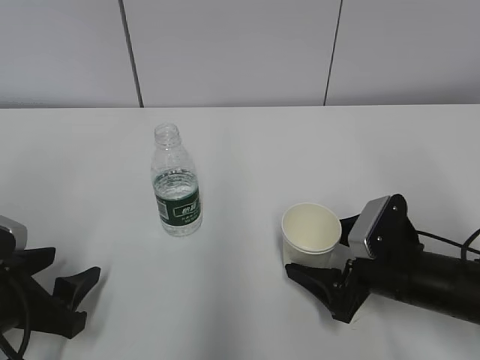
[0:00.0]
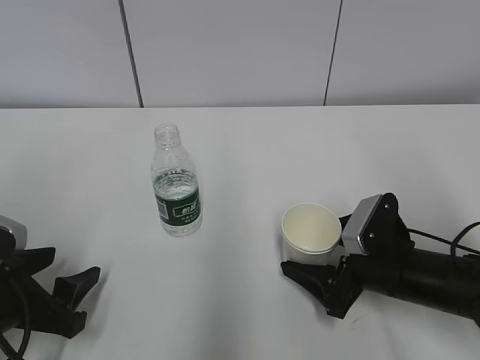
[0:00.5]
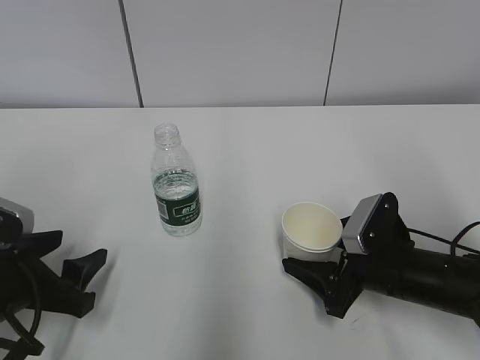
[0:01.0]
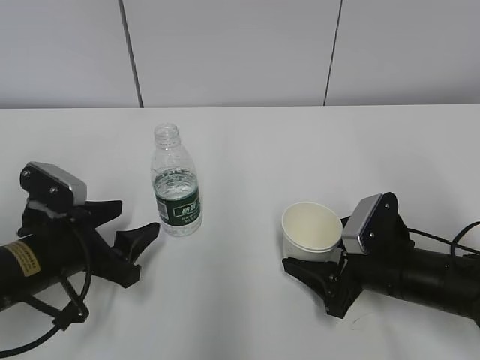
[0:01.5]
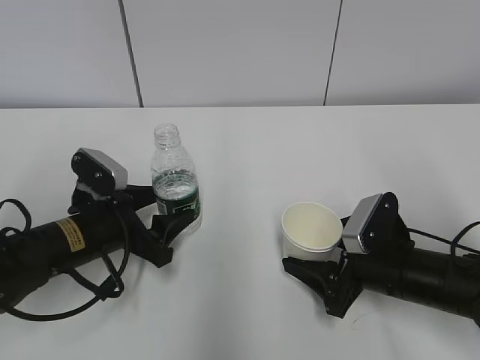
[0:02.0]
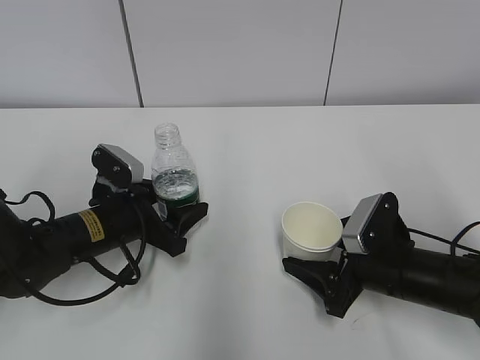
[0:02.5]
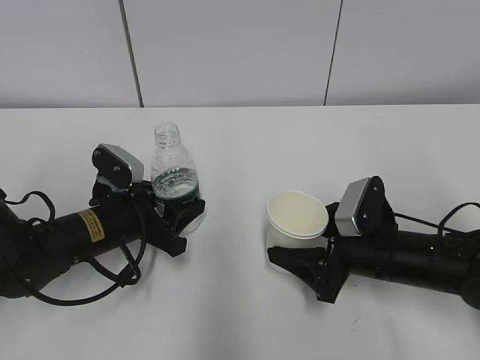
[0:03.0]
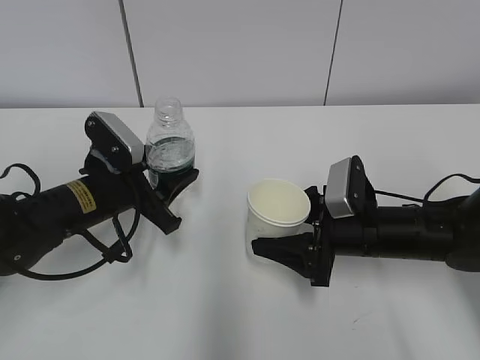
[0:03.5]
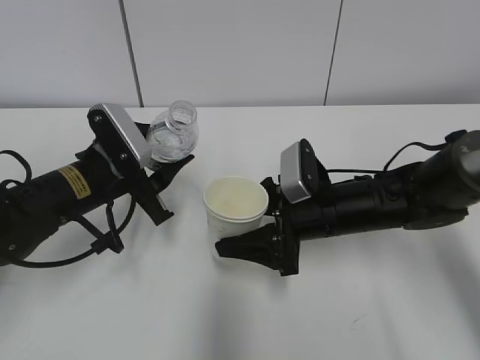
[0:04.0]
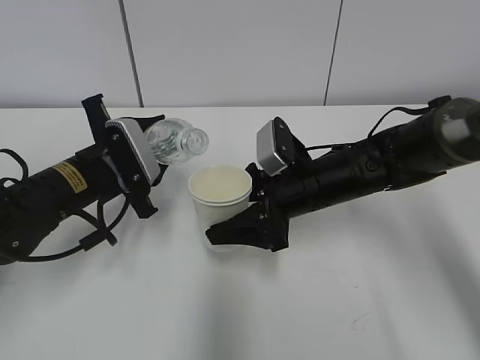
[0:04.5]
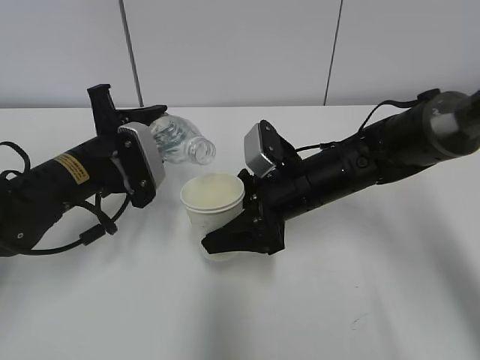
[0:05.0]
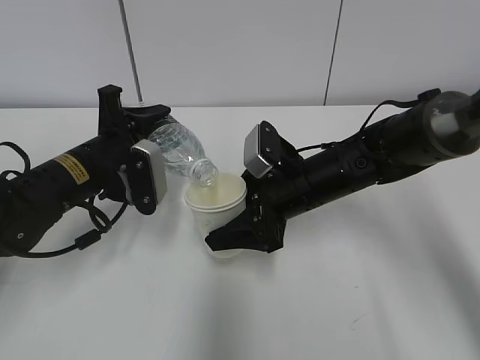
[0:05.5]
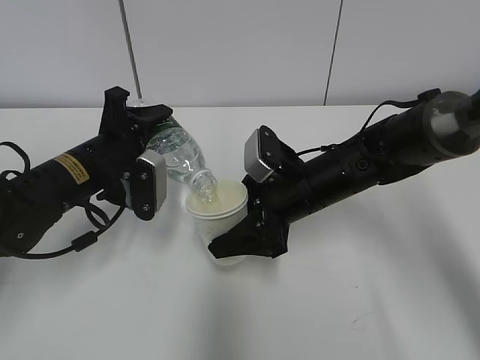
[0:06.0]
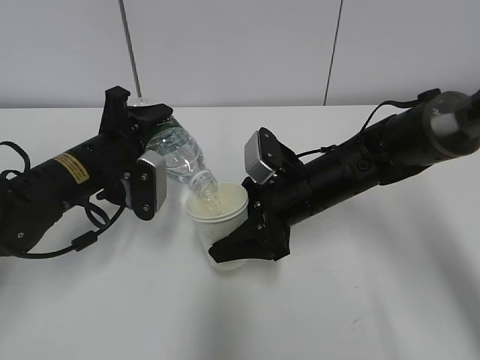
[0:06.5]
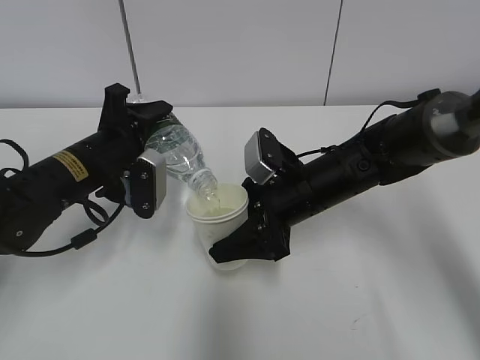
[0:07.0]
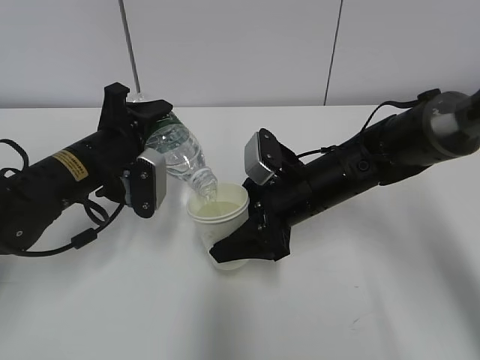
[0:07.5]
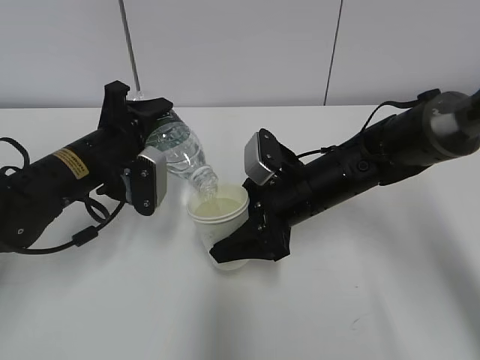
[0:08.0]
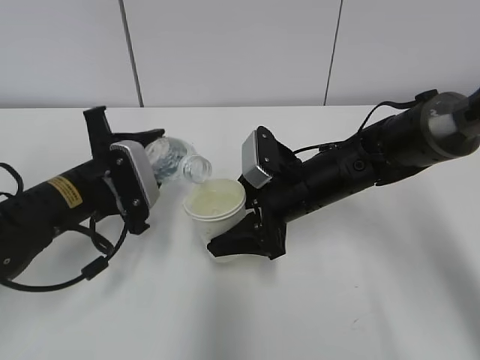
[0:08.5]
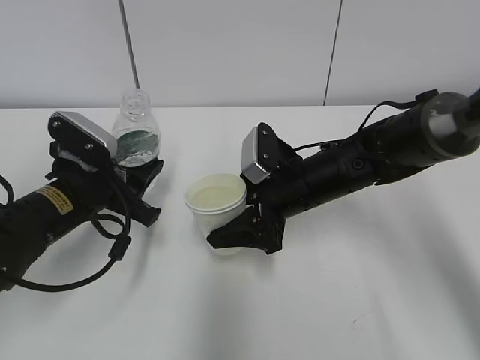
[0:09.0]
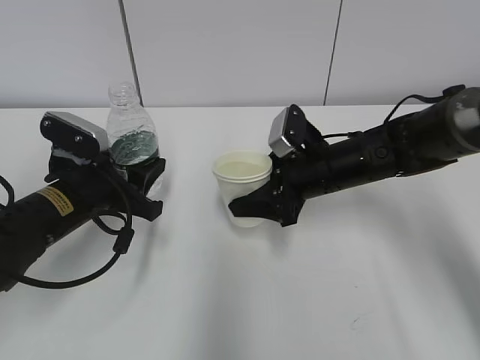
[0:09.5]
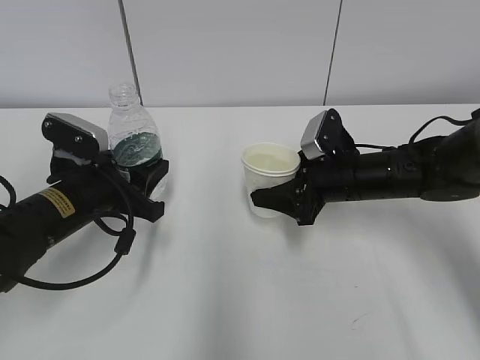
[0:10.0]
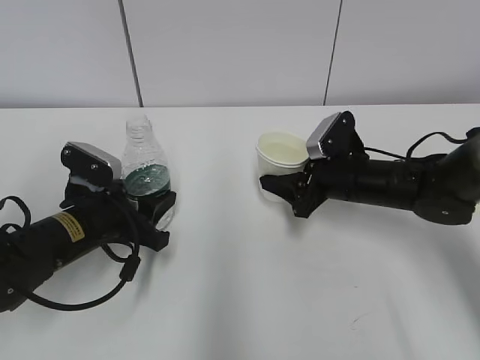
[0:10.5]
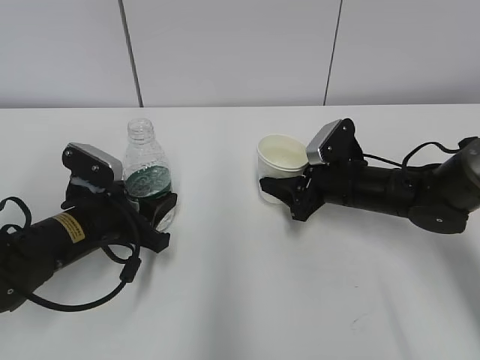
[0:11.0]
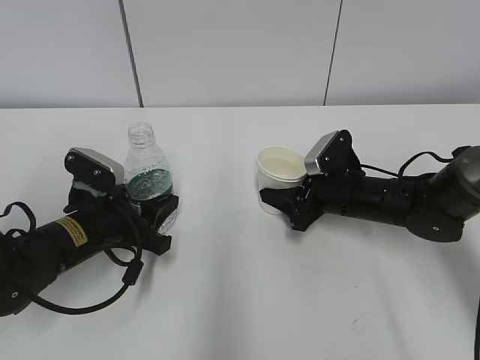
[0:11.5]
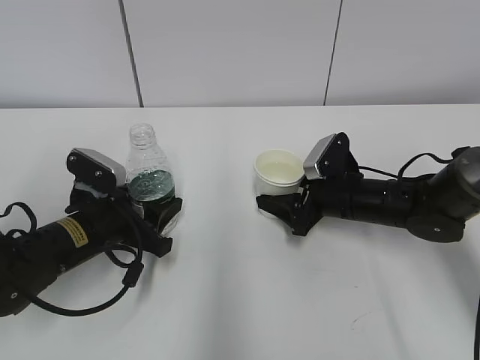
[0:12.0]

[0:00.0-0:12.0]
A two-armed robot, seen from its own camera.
Step, 0:02.0 to 0:03.5: Lift the paper cup with the right hand.
Step, 0:04.0 to 0:05.5: Fill water with the right hand.
Step, 0:04.0 to 0:05.5: Pour water with the left hand.
Step, 0:07.0 to 0:09.0: Place the paper cup with the right hand.
0:00.0 to 0:02.0: The left gripper shifts roughly 15 cm forward and to the right, while the right gripper closes.
0:02.0 to 0:04.0: The left gripper shifts about 5 cm upward, and closes. Meanwhile the right gripper moves to the left and forward, about 10 cm.
0:06.0 to 0:08.0: Both grippers stay about where they are.
0:08.0 to 0:10.0: The right gripper moves to the right, about 5 cm, and closes up.
0:10.0 to 0:12.0: The right gripper opens its fingers.

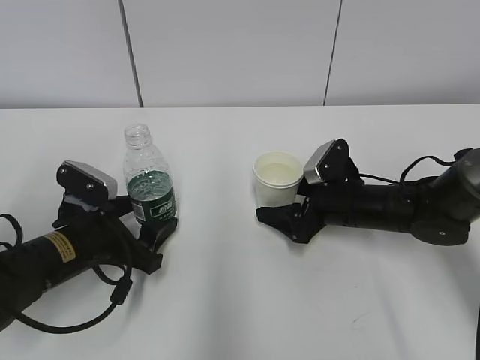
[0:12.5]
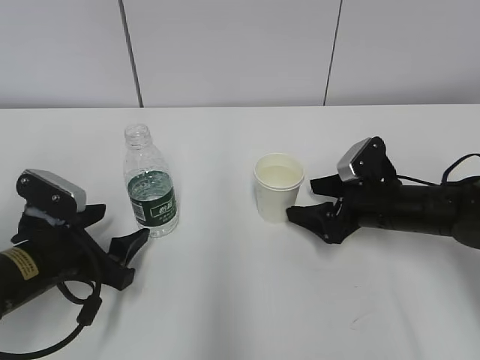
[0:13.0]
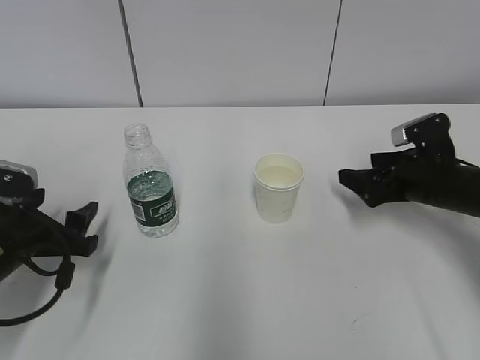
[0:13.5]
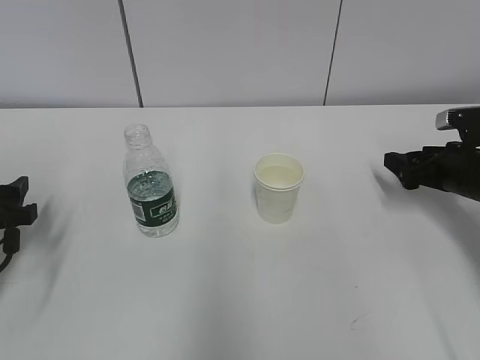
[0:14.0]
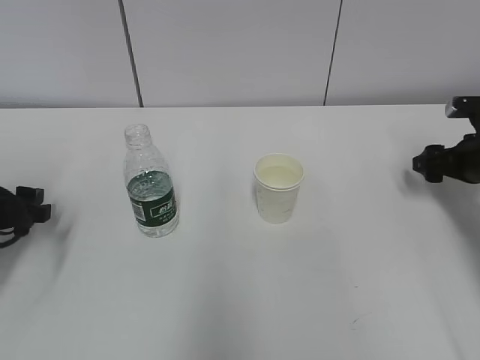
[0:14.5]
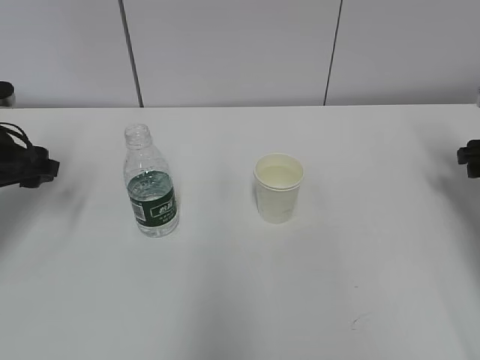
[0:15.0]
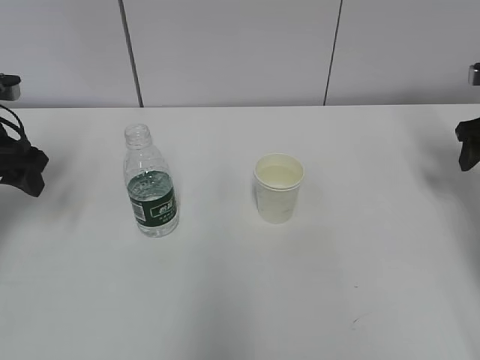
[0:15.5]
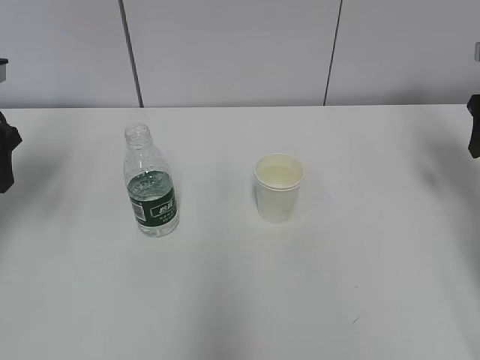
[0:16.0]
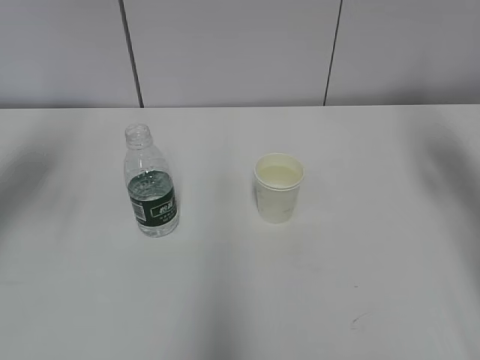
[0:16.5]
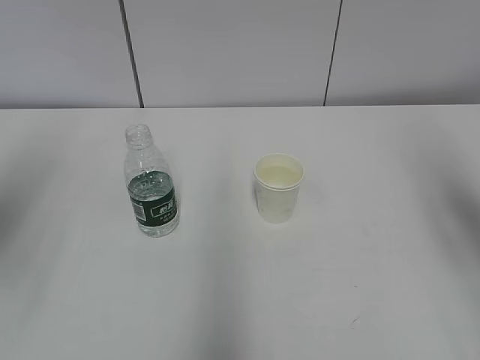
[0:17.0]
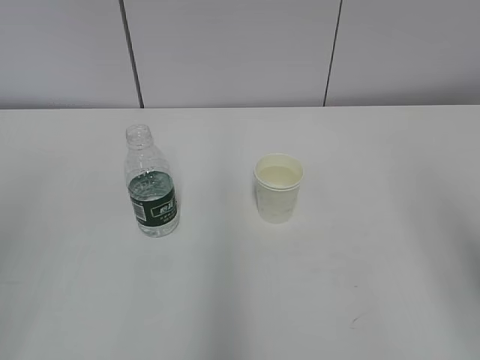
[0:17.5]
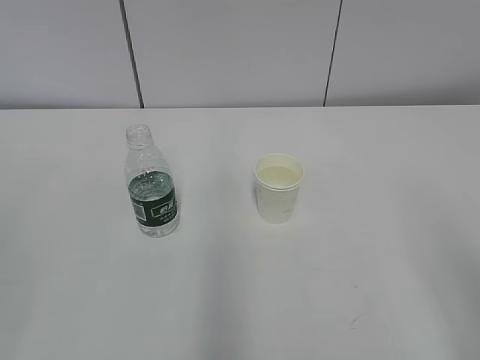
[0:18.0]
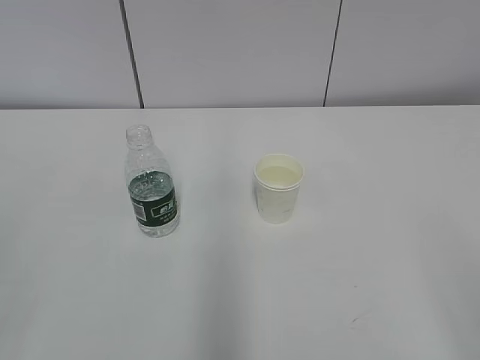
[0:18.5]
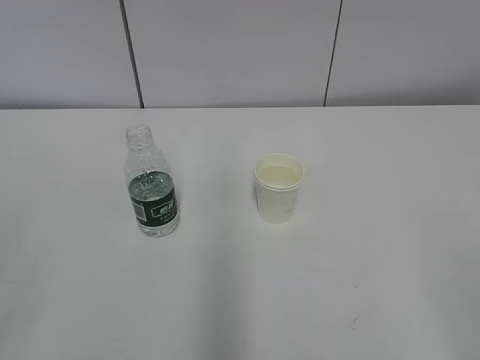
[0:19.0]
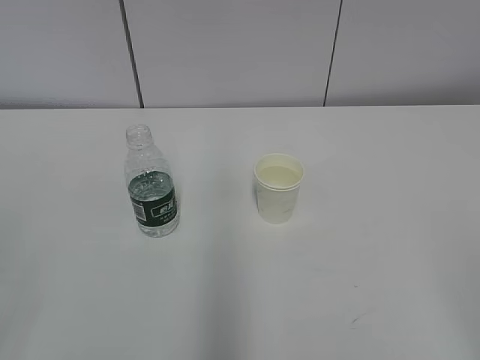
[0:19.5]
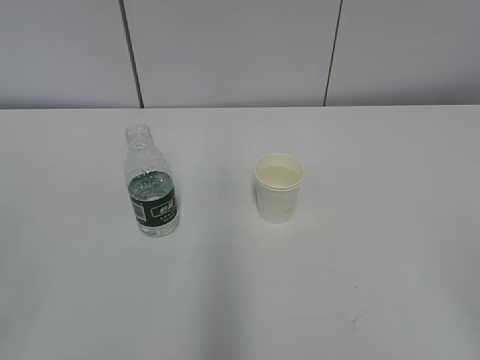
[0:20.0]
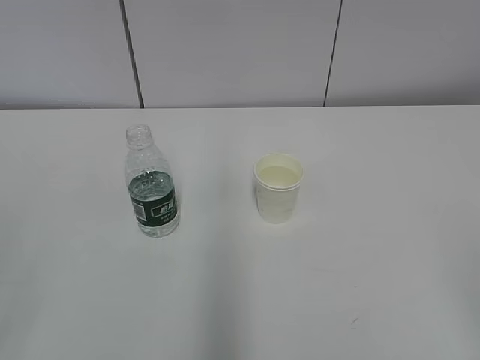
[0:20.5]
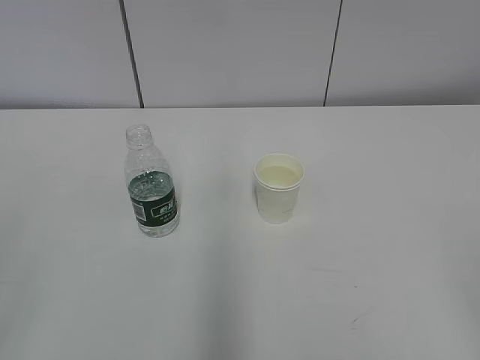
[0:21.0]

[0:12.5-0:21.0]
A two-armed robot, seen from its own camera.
0:12.5 to 0:14.5: The right gripper travels to the right by some 20 cm, while the left gripper travels to the left by approximately 10 cm.
0:14.5 to 0:16.5: The grippers both shift upward by some 20 cm.
0:16.5 to 0:19.0: Both grippers travel together backward, about 35 cm.

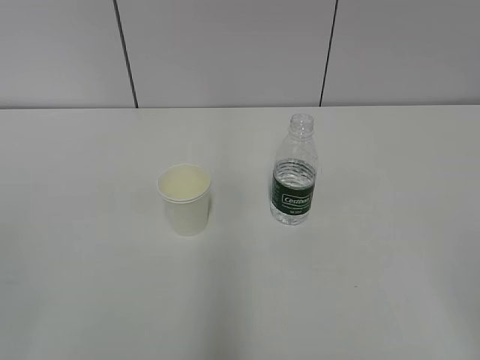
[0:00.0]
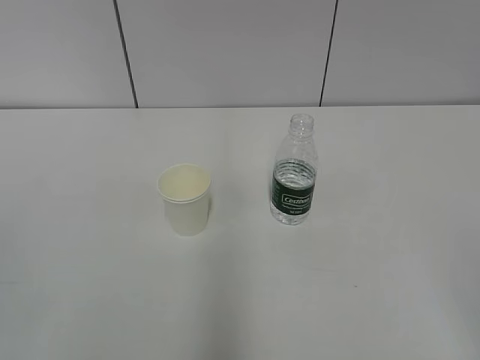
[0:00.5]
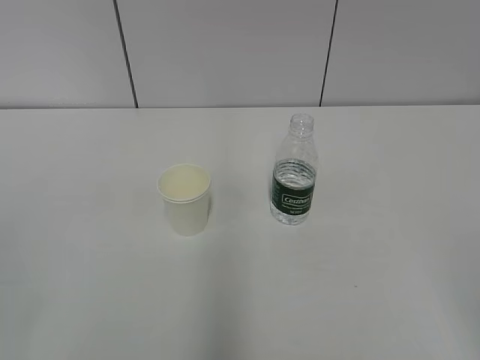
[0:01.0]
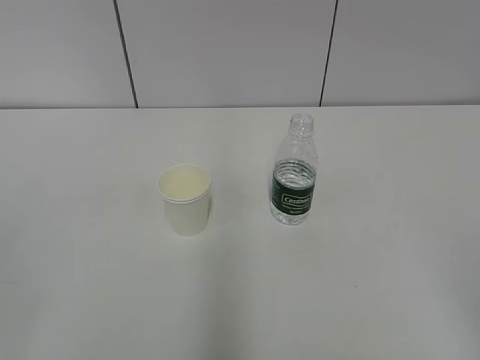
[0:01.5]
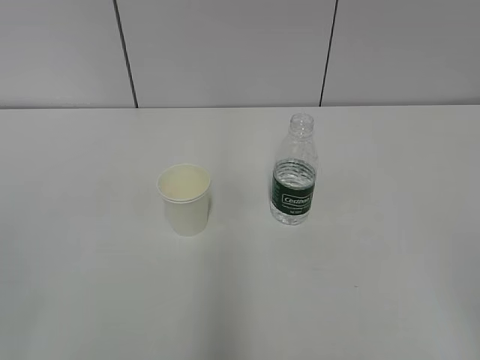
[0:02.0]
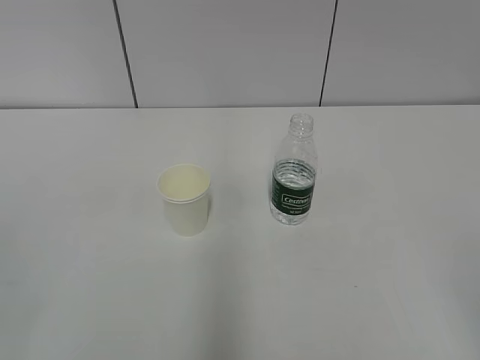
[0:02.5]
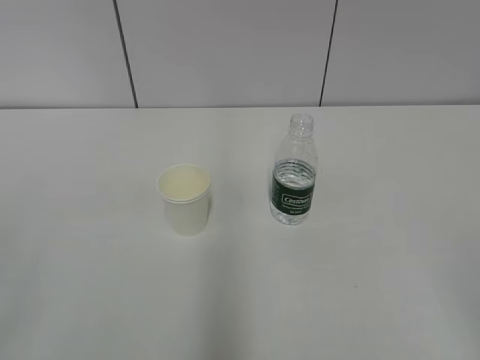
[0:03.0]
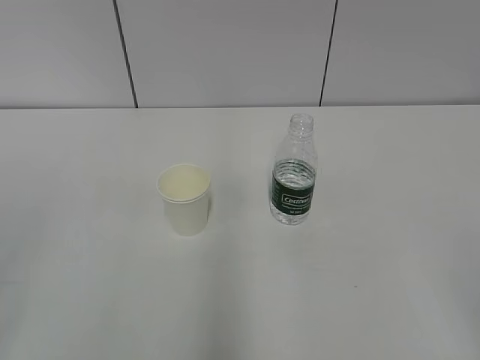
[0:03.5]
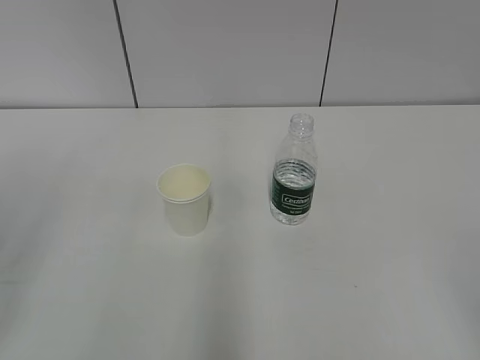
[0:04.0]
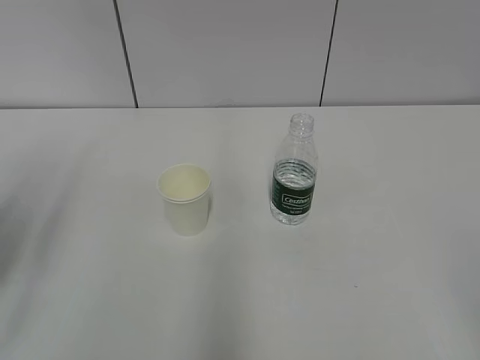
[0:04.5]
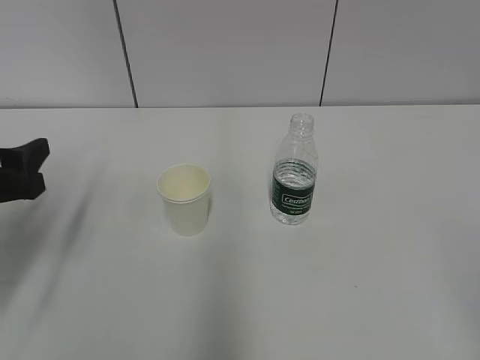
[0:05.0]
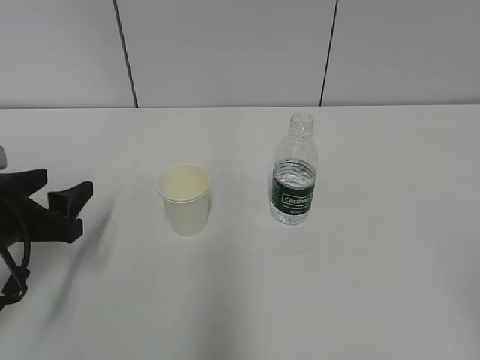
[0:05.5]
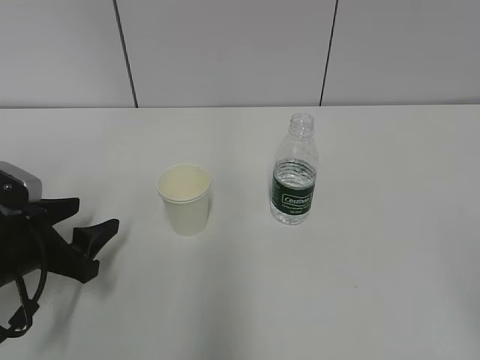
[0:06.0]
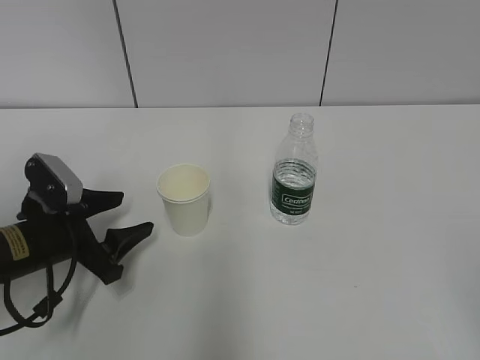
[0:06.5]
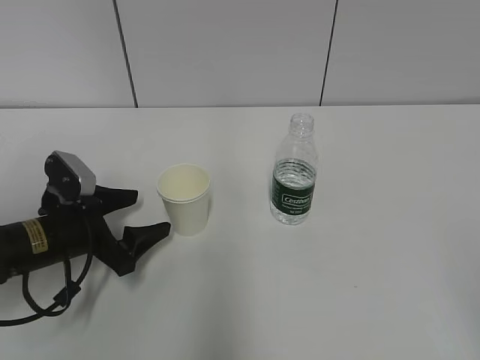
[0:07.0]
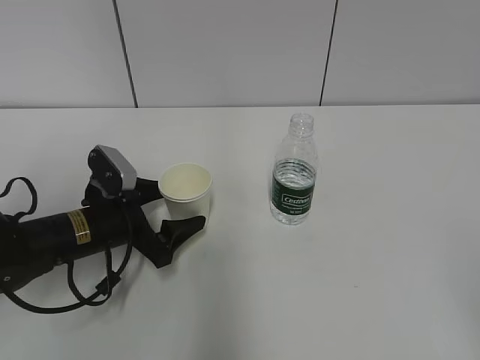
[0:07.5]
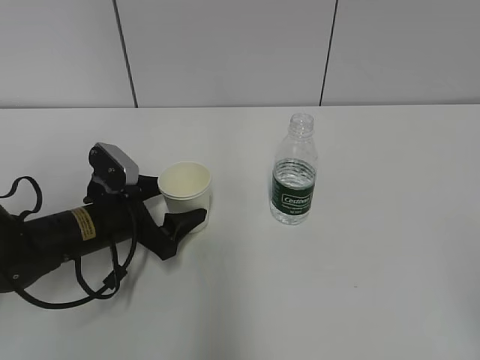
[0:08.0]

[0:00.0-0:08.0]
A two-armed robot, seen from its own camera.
Step, 0:00.0 to 0:07.5: Grab the paper cup with the left hand.
0:04.0 to 0:06.0: The left gripper heads downward and forward, covering about 25 cm.
0:06.0 to 0:08.0: The left gripper heads to the right and forward, covering some 10 cm.
